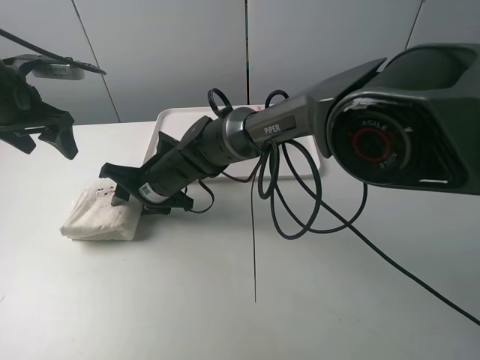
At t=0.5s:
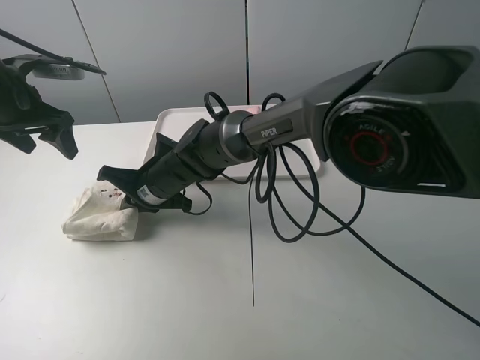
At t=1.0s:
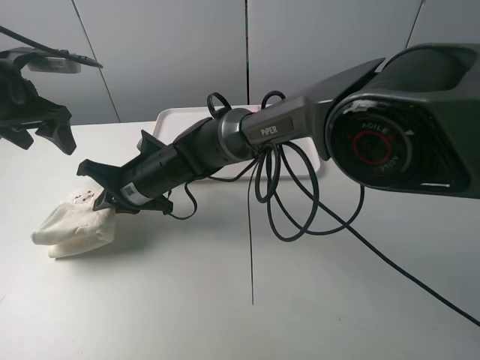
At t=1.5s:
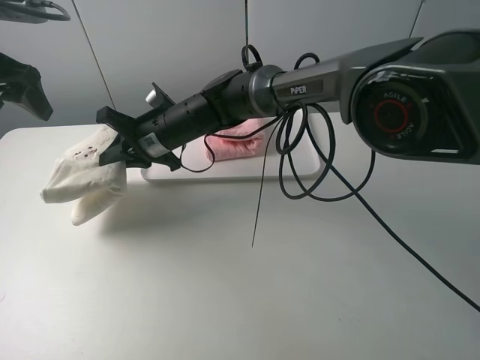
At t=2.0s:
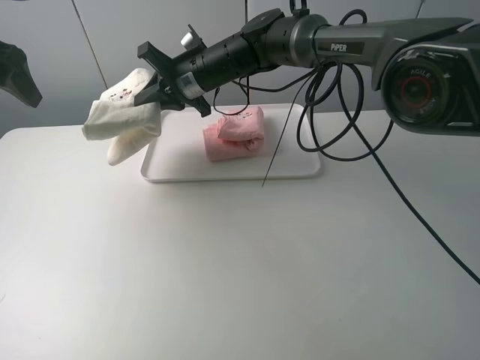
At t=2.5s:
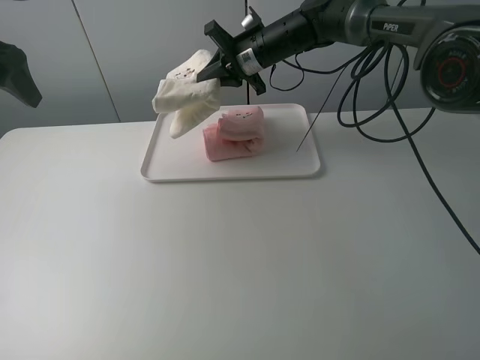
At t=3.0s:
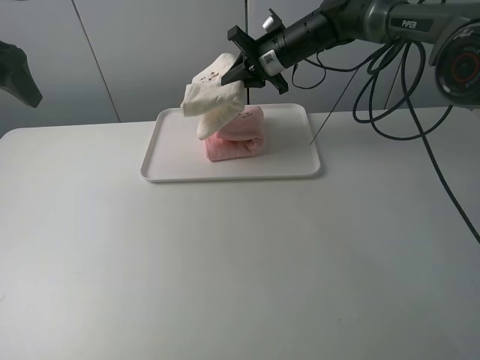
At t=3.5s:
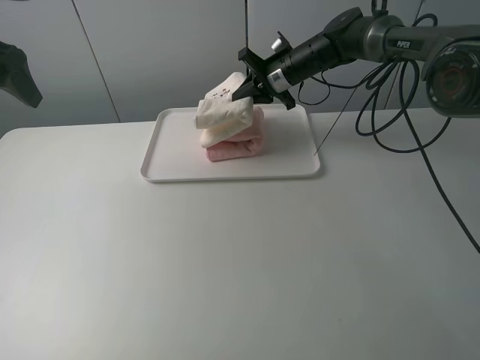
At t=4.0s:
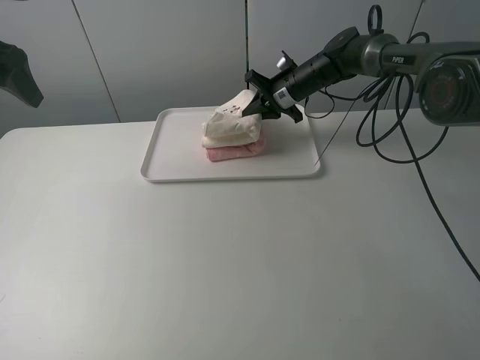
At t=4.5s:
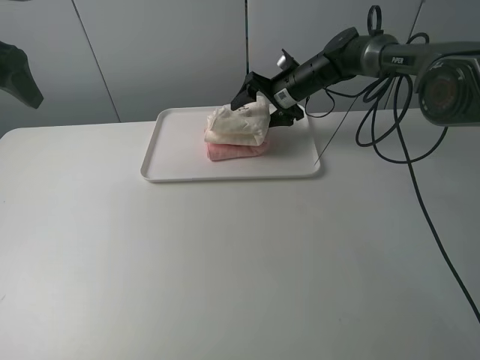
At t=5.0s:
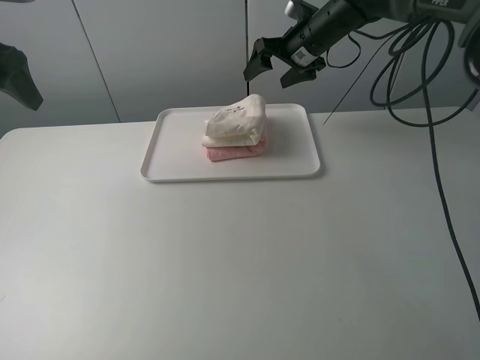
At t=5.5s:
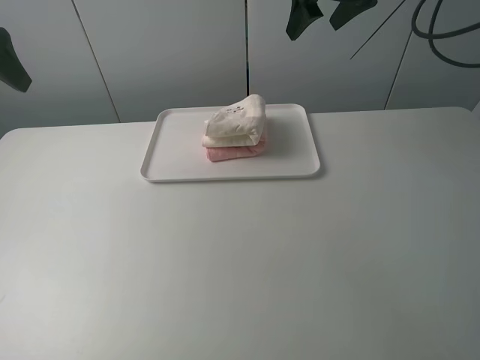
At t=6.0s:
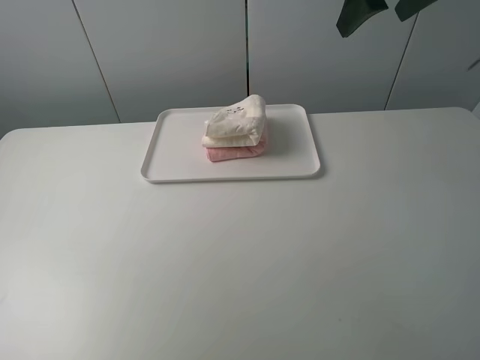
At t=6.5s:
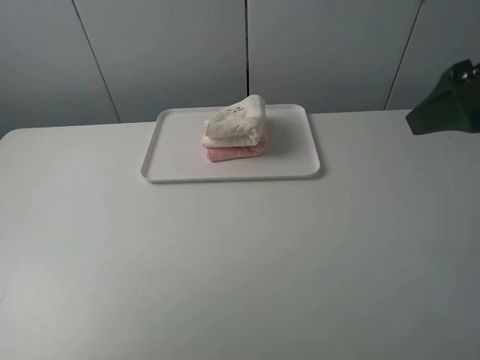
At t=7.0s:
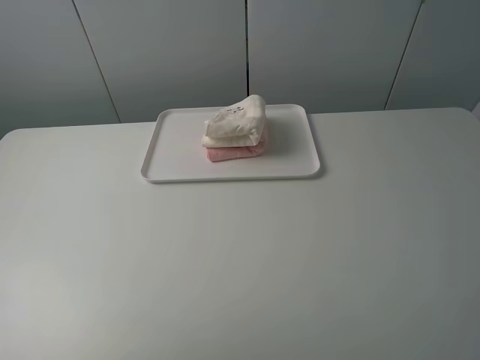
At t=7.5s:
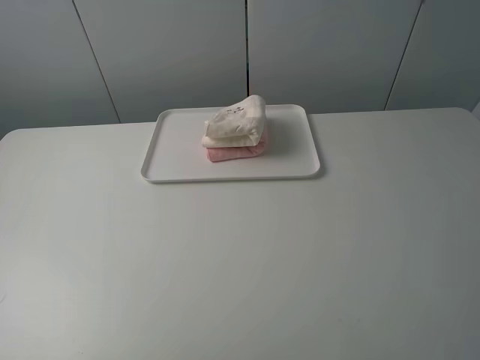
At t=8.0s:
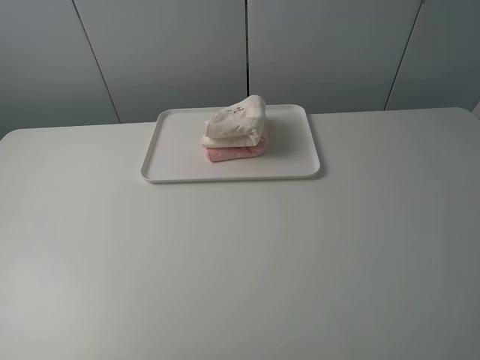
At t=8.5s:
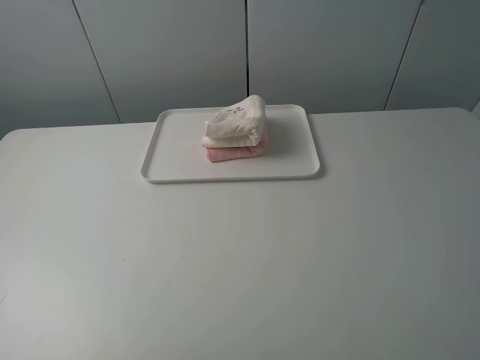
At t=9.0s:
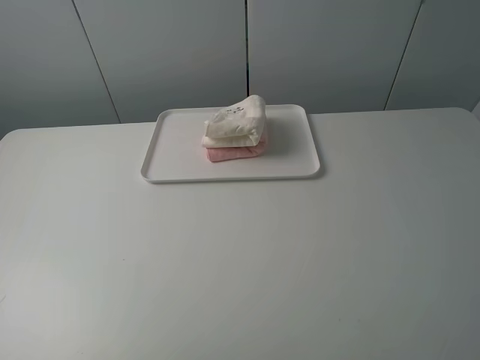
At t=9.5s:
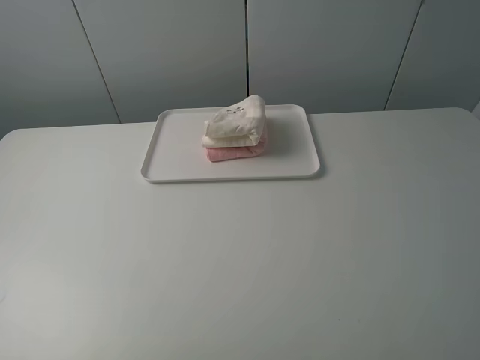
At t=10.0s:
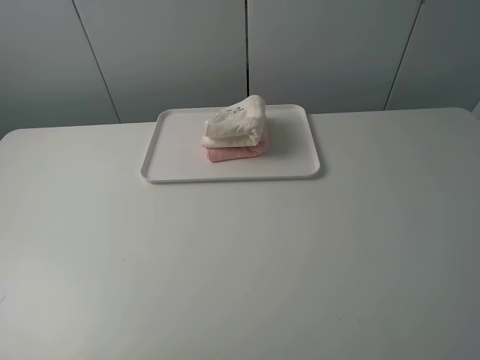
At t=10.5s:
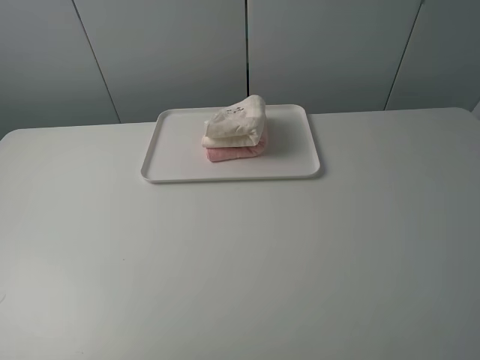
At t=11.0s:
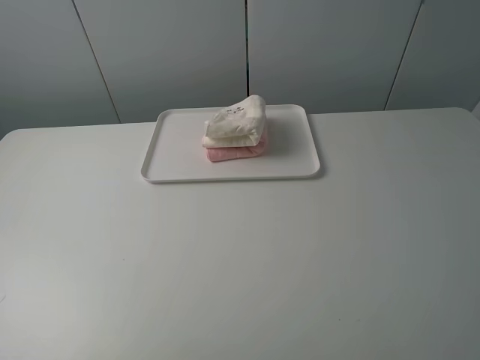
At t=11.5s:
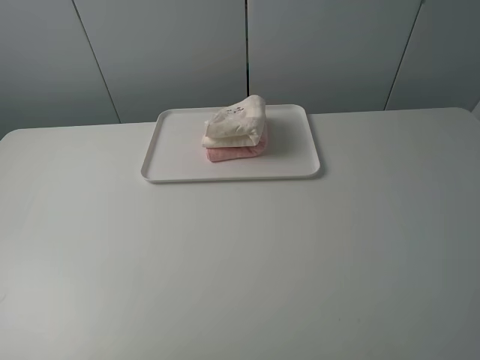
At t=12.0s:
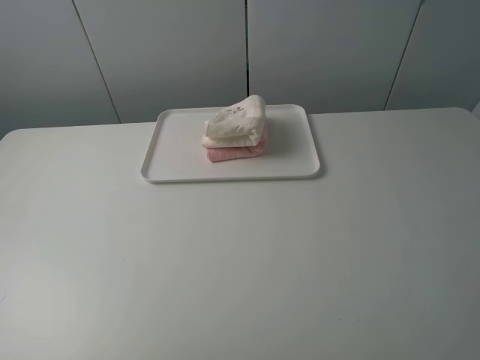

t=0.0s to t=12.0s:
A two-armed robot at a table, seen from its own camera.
Task of the whole recording: fold one of the towels by two grippers and place it on the tray,then fold another towel by two grippers and place it on the folded towel.
Step, t=1.0s to t=4.5s: Place the white towel on the pink towel with the right gripper.
t=0.0s to t=2.0s: The left gripper travels upward by approximately 10 cm, while the right gripper travels upward, forward and to the right by approximately 20 cm, and closes its fingers.
t=2.0s to t=4.0s: The right gripper goes some 20 cm to the right, forward and downward.
t=4.0s to t=6.0s: The right gripper moves upward and backward, about 30 cm, and opens up, while the left gripper is displaced backward by about 15 cm.
t=6.0s to t=8.0s: The right gripper shifts roughly 35 cm backward.
